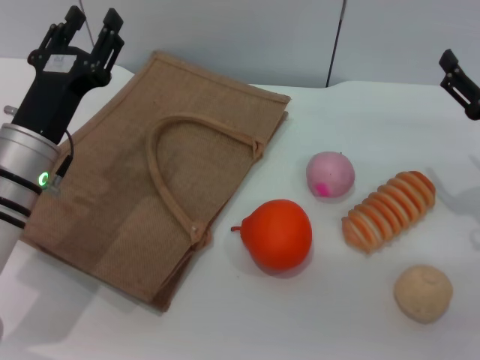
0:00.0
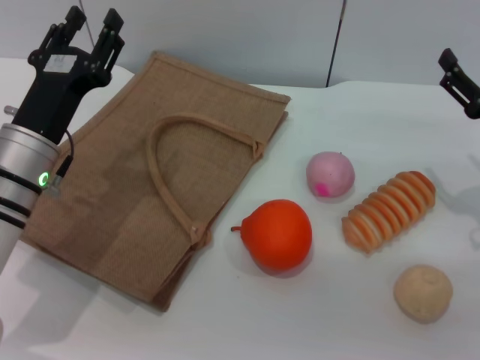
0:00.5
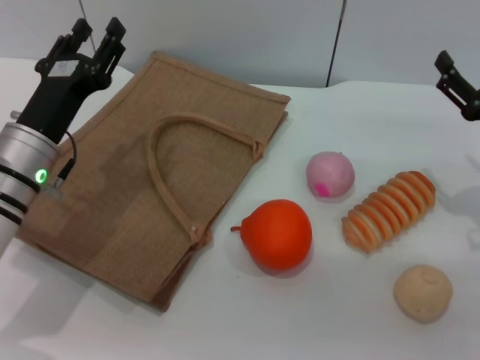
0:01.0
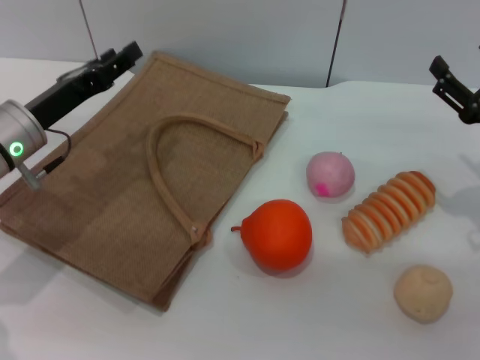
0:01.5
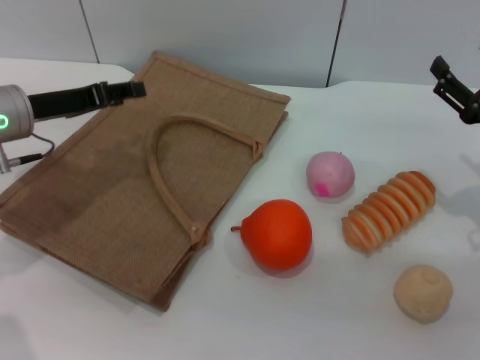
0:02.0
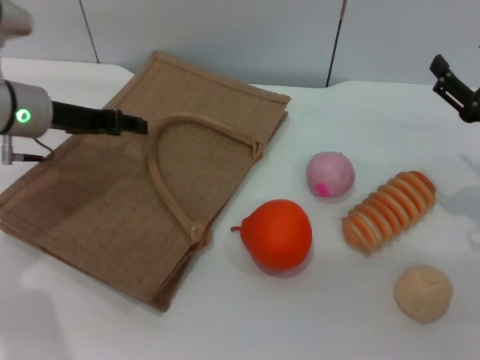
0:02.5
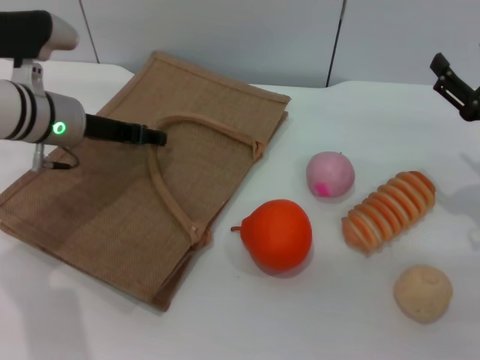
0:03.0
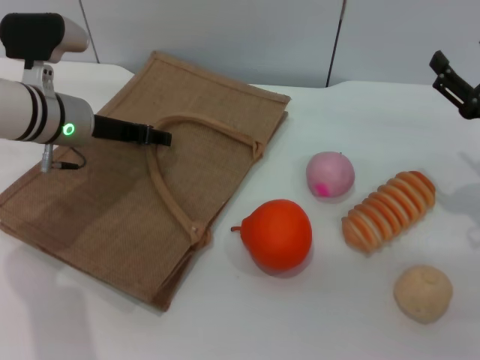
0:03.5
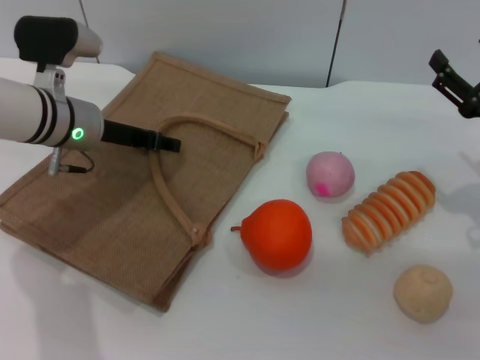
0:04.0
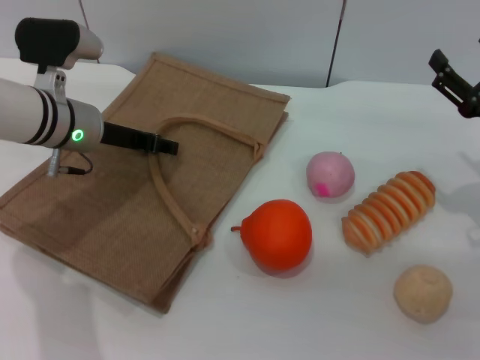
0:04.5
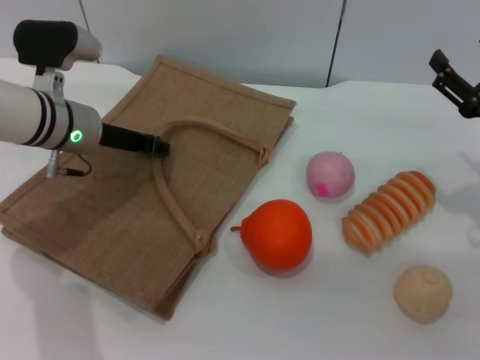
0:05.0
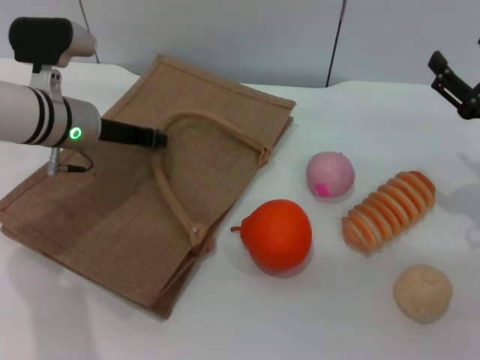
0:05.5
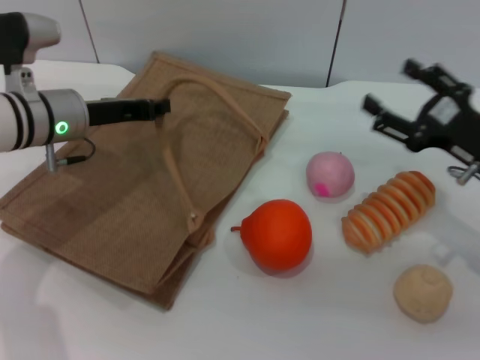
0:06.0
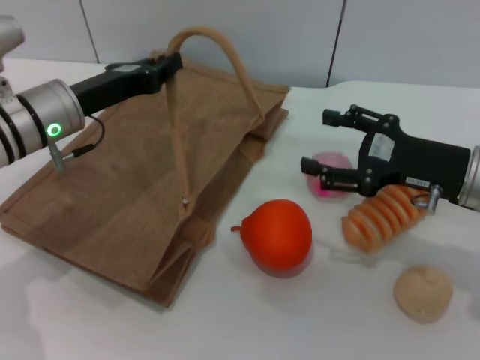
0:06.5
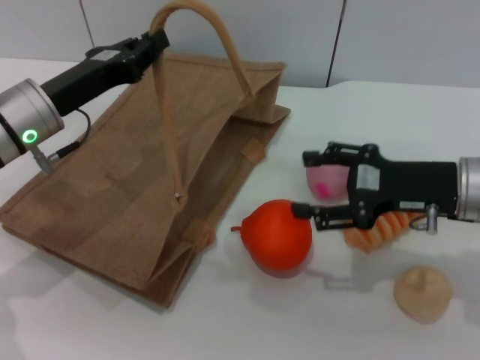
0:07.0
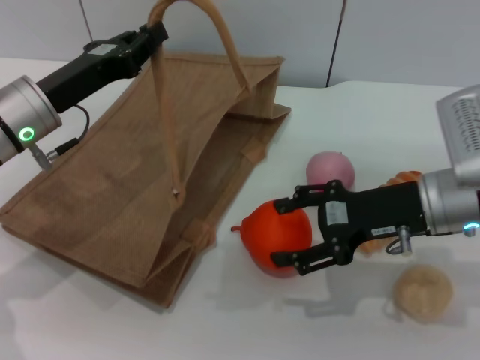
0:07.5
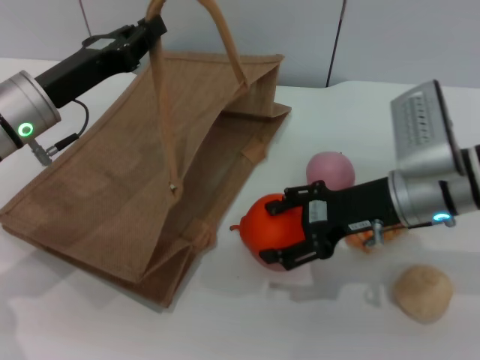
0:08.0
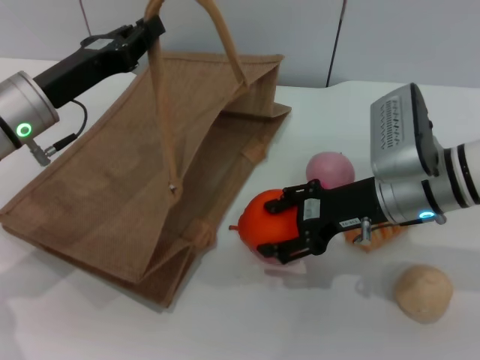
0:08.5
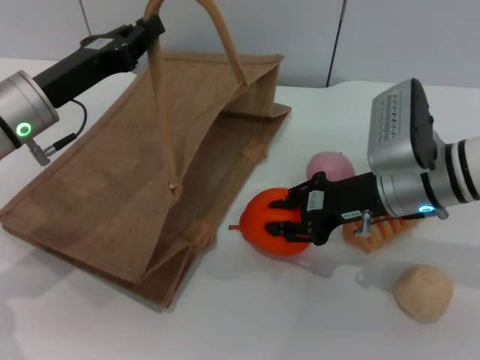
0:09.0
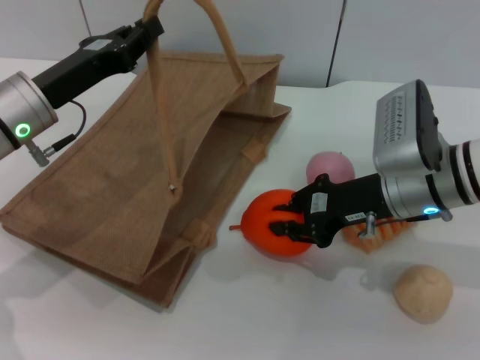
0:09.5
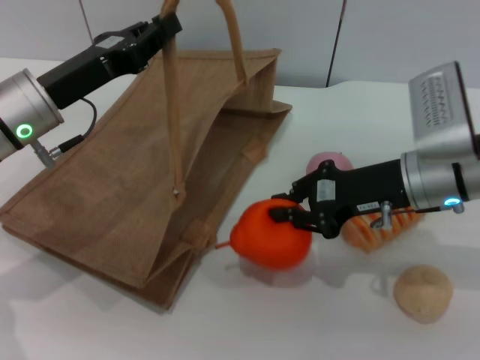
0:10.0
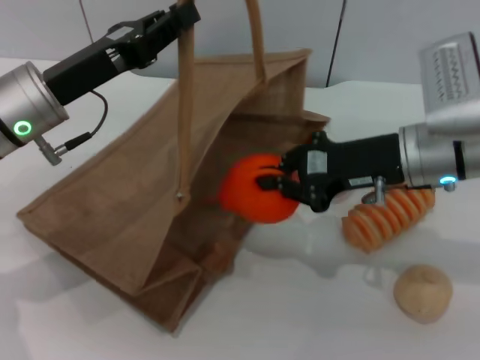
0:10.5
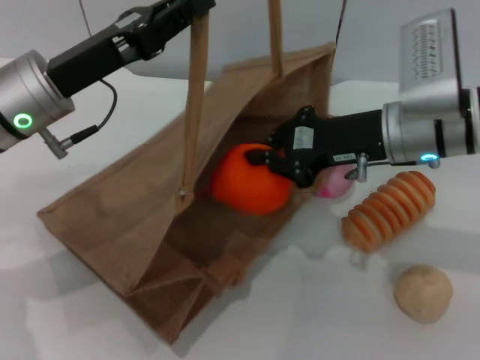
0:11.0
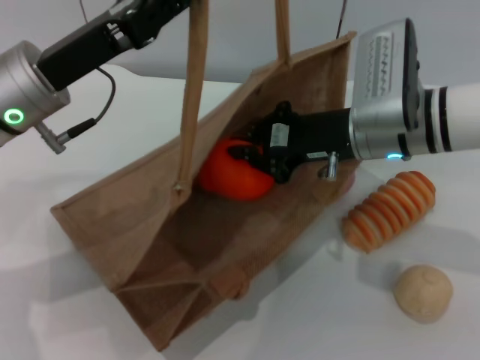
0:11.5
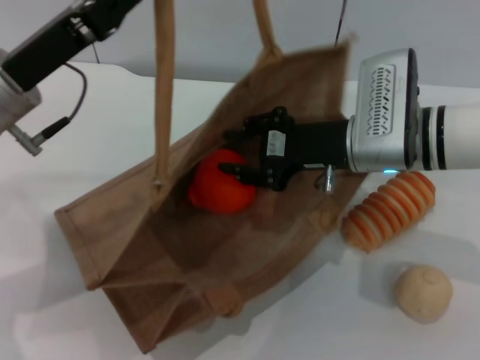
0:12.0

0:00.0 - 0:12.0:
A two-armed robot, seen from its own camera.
Task of the whole recording: pick up the orange and peach from the table and place it in the brown handbag.
Step, 0:00.0 - 0:05.5: Lift the woven bag with the left gripper to open it.
Step, 0:06.0 - 0:10.0: Pick up the orange with the right gripper.
0:00.0 - 0:02.0: The left gripper shifts approximately 10 cm forward and to the left.
0:02.0 - 0:04.0: The left gripper travels to the right by about 5 cm.
0:04.0 - 0:06.0: The left gripper closes its fingers.
0:06.0 - 0:08.0: The left gripper changes place by roughly 5 cm, while the right gripper moves to the left, about 10 cm.
0:08.0 - 0:10.0: The right gripper closes.
0:10.0 - 0:12.0: The right gripper changes place by roughly 5 cm.

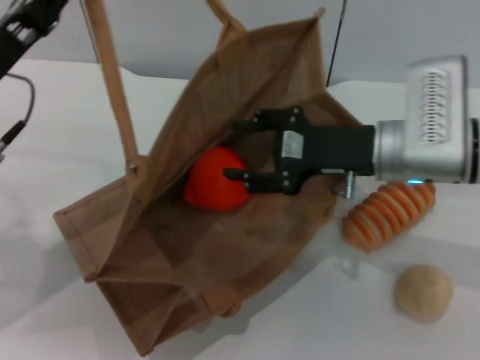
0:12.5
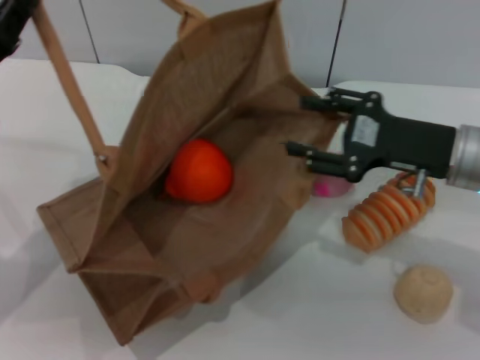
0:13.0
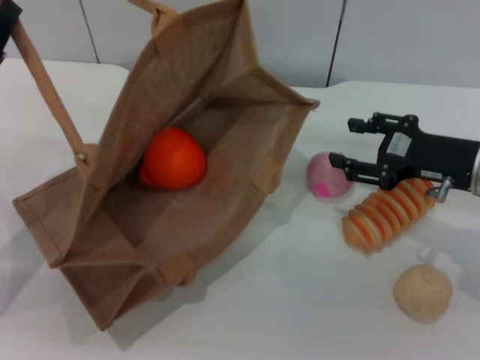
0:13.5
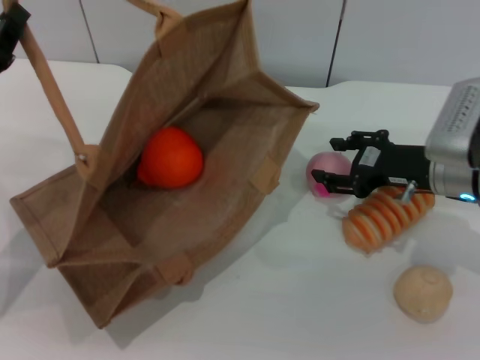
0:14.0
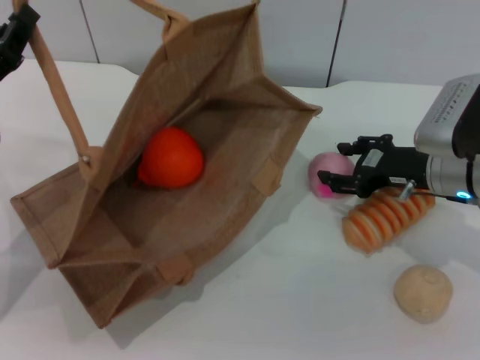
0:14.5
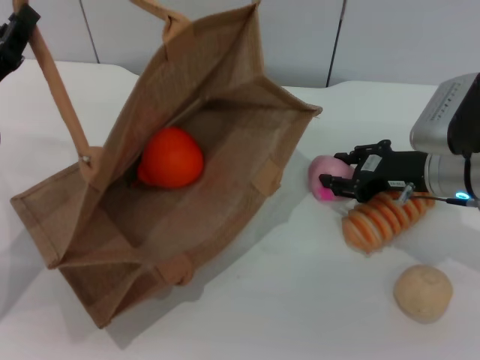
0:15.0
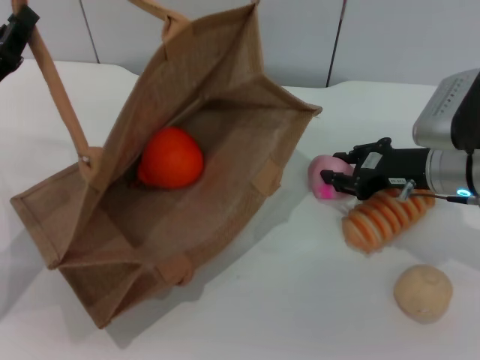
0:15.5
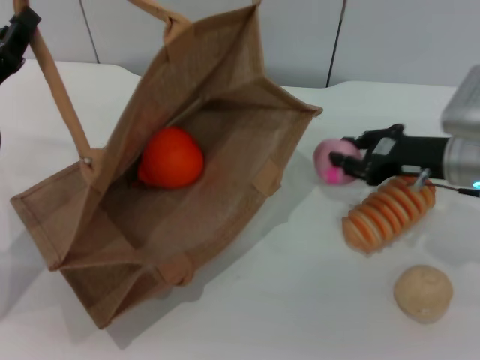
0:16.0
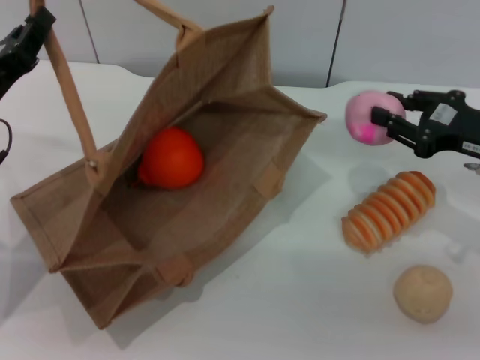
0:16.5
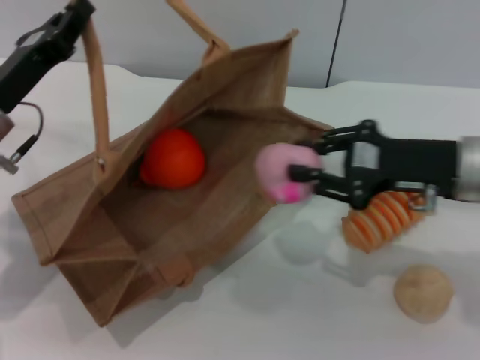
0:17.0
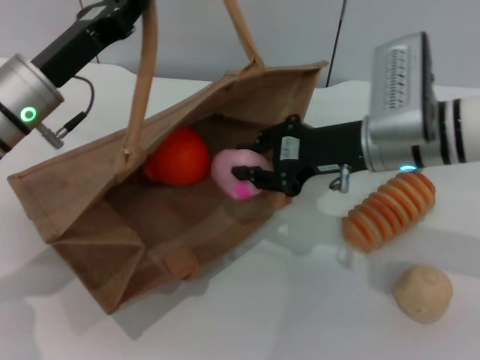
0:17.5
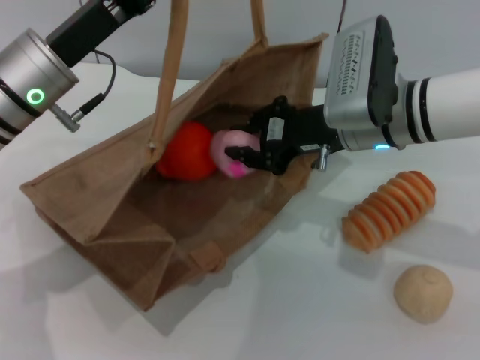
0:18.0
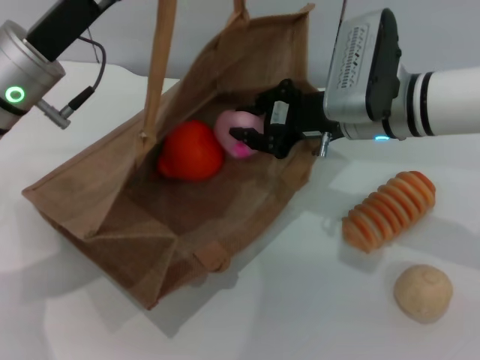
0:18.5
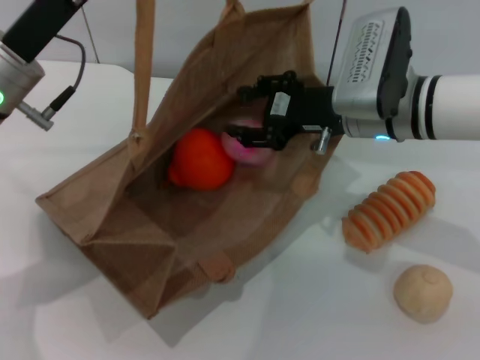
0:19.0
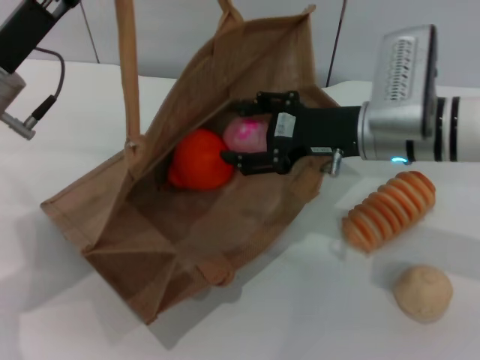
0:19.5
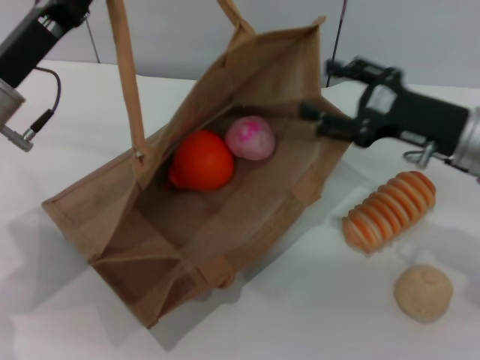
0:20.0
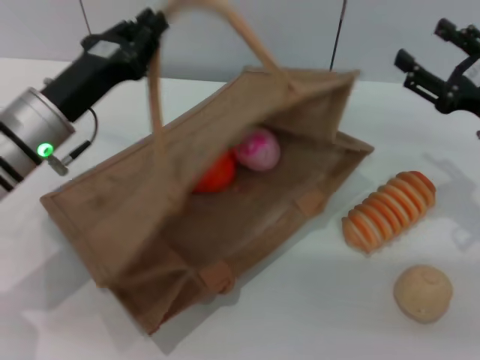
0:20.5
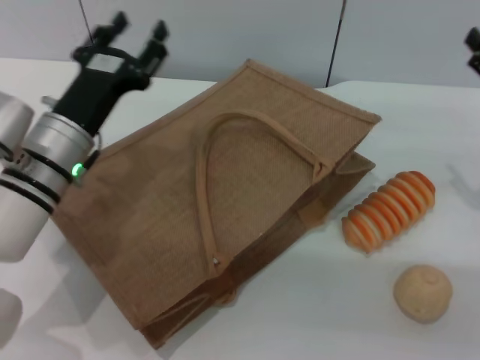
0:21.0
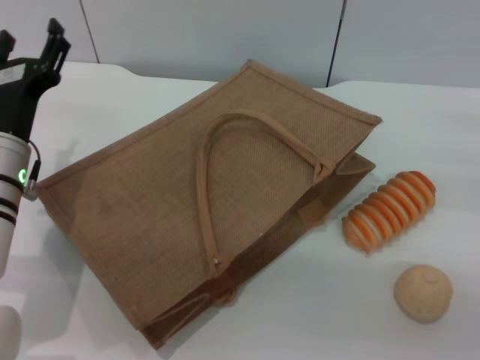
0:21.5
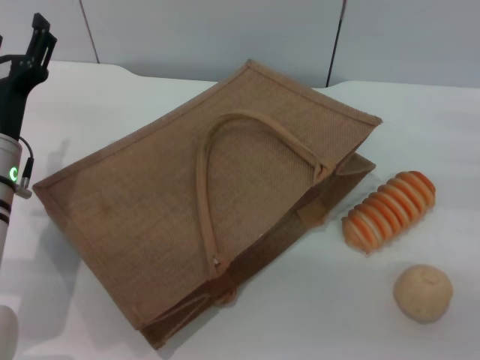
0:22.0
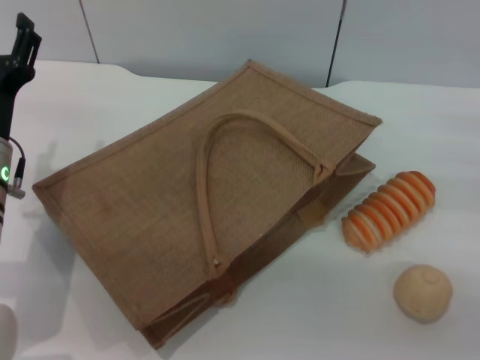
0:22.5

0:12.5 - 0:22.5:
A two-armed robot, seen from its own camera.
Task of the whole recording: pick up the orange and peach from the table and place it in the brown handbag.
Step, 0:12.5 - 0:16.0: Pick up the peach with the right gripper.
Step, 0:16.5 - 0:19.0: Place the peach into the woven bag with the right gripper.
Step, 0:19.5 - 0:20.5: Lower the woven bag with the left gripper to close it.
0:12.5 - 0:14.5: The left gripper moves some 5 cm; the right gripper moves to the right, some 5 cm.
0:14.5 - 0:16.5: The right gripper goes some 5 cm to the right, and closes up.
0:16.5 - 0:18.5: The right gripper travels to the left by about 15 cm, while the left gripper goes approximately 10 cm to the right and upward.
0:18.5 - 0:20.5: The left gripper goes approximately 5 cm downward; the right gripper goes some 15 cm to the right, and opens.
0:20.5 - 0:22.5: The right gripper heads to the right, covering about 5 cm; the left gripper moves about 5 cm, and opens.

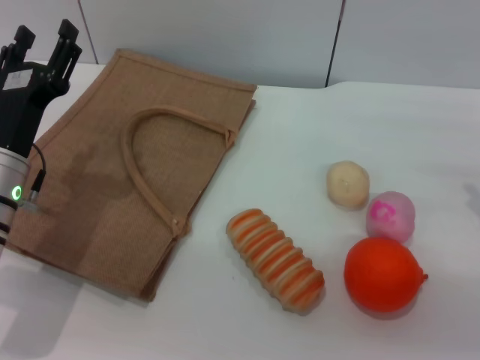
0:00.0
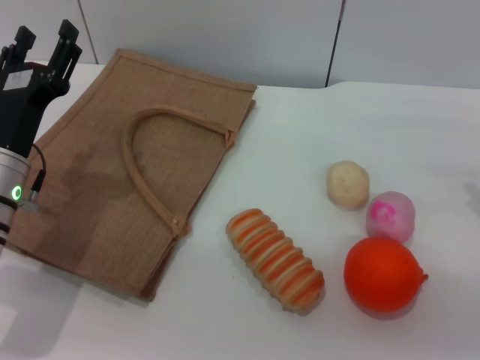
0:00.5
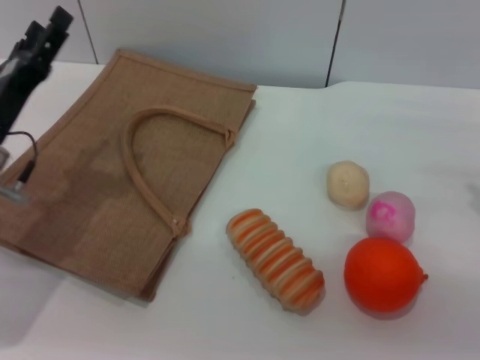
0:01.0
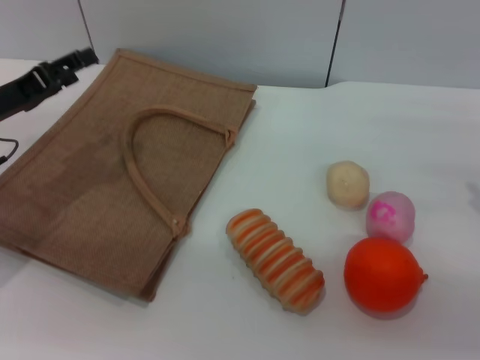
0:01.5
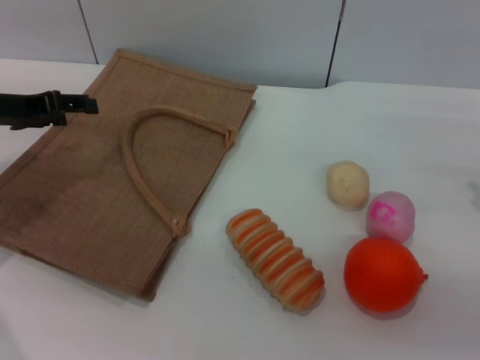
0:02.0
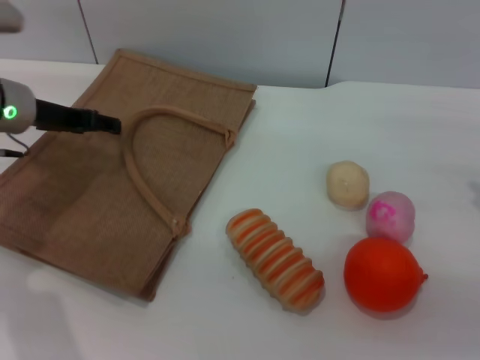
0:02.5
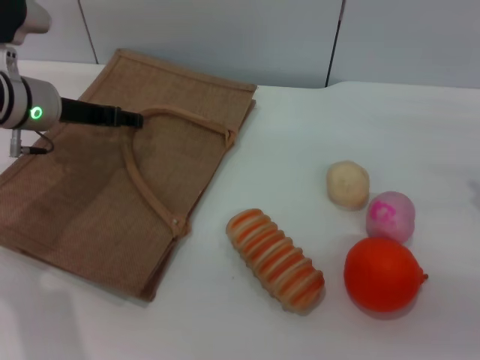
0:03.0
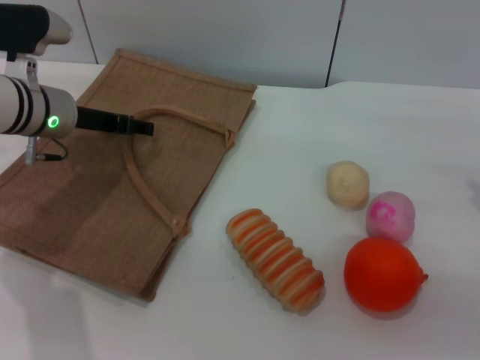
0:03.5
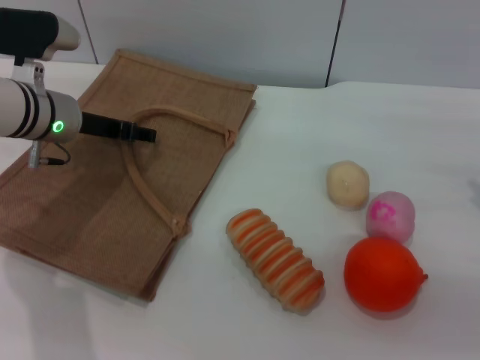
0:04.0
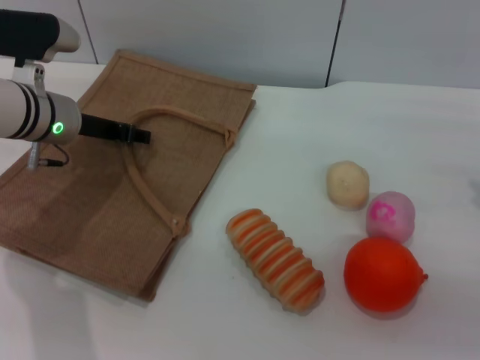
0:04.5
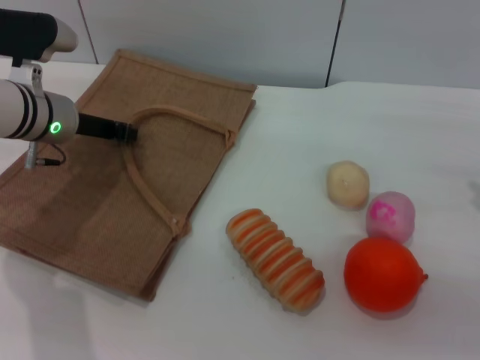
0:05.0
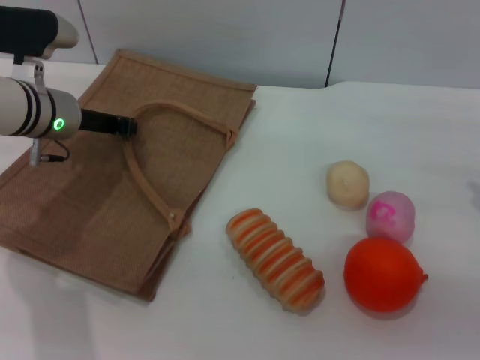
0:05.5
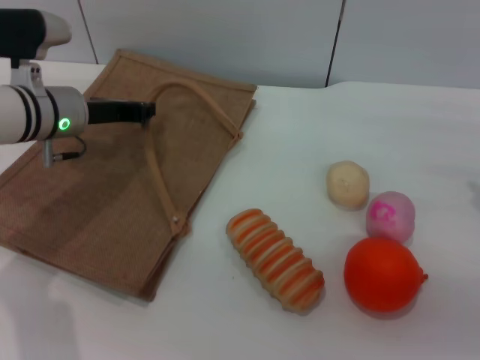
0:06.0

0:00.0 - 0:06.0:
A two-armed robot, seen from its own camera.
Task of the whole recording: pick up the bread and egg yolk pastry from the table and place it in the brown handbag.
0:00.0 - 0:02.0: The left gripper is displaced to the left, forward and upward by some 15 cm.
0:02.0 - 0:04.0: The left gripper moves to the right, about 10 cm.
0:04.0 - 0:06.0: The left gripper closes.
